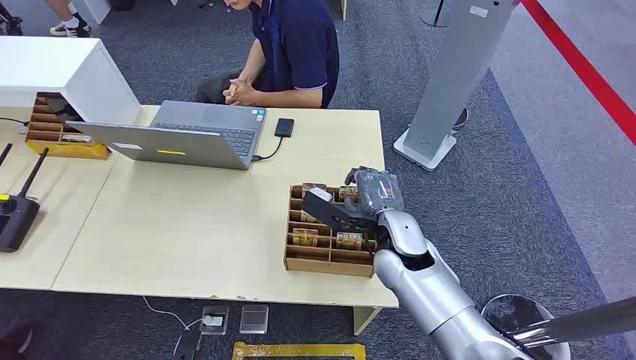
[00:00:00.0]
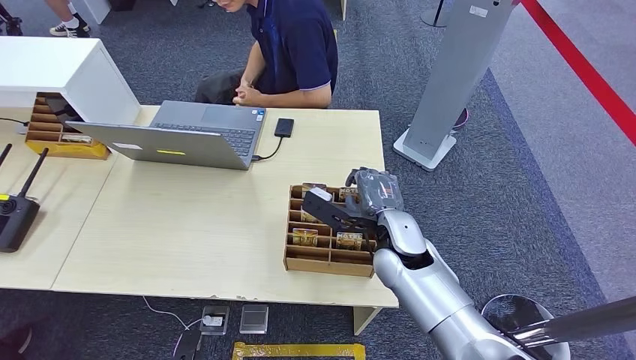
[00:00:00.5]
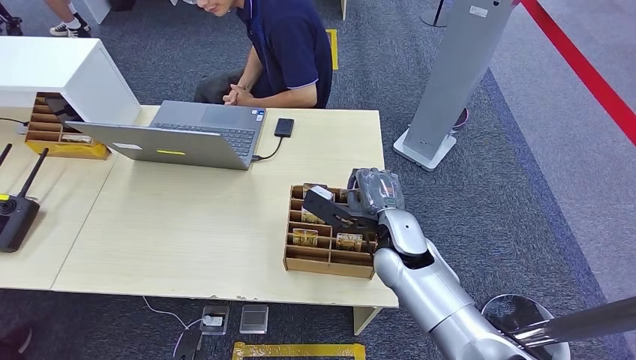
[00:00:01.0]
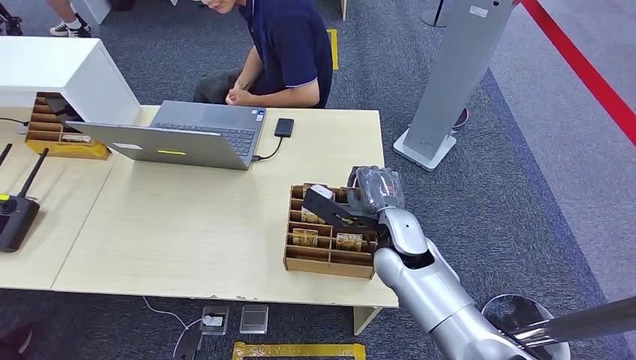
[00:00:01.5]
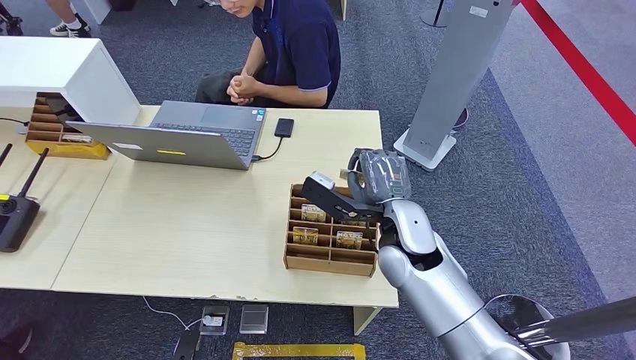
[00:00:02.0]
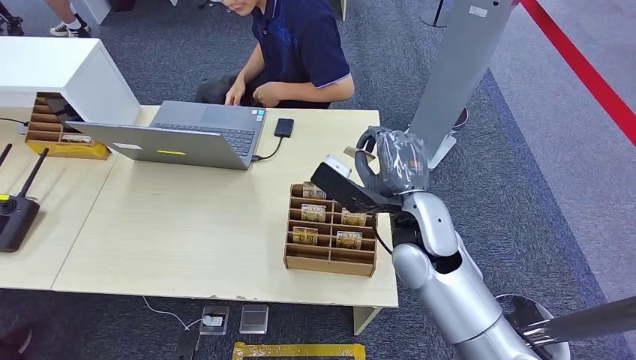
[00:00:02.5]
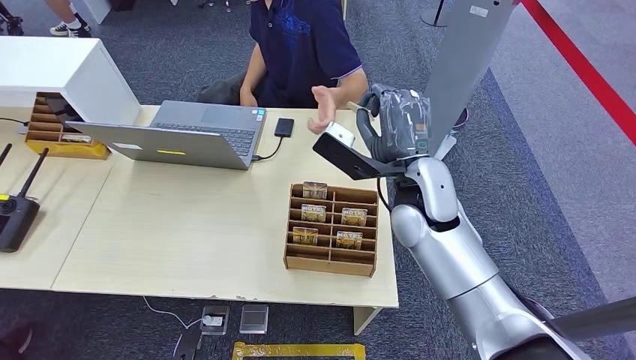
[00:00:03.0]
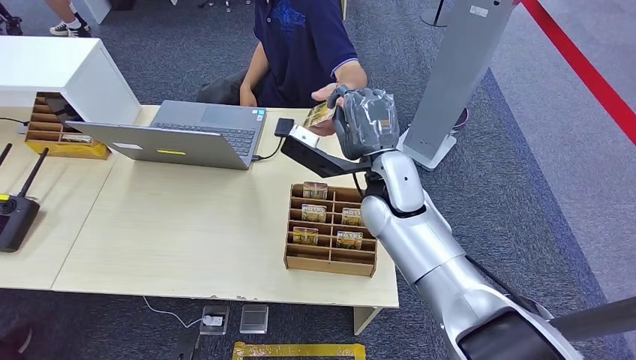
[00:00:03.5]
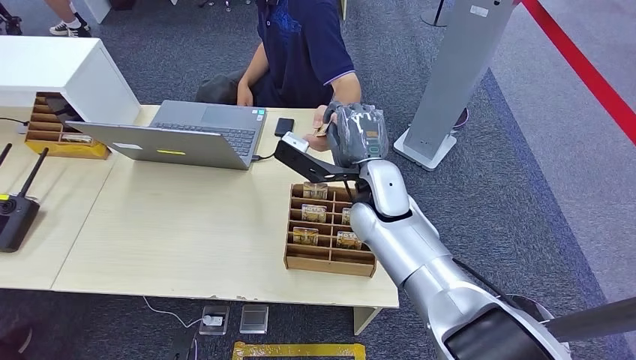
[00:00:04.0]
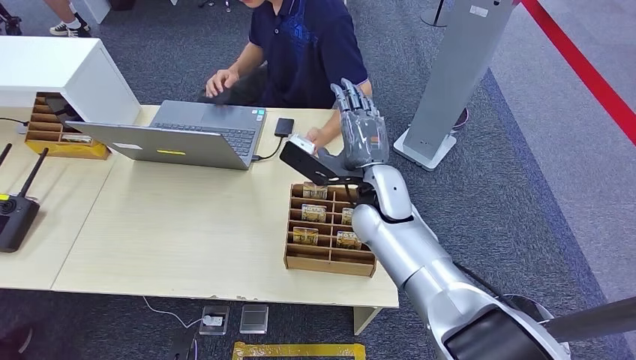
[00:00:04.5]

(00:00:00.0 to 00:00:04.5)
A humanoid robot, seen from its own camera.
Task of the whole recording: Pick up the card and hand it to the target person.
Step, 00:00:00.0 - 00:00:02.0: Pick up the key card from the card box.
Step, 00:00:03.5 - 00:00:04.5: Hand the key card to the target.
00:00:02.0 - 00:00:04.5: The right hand heads forward, covering approximately 5 cm.
